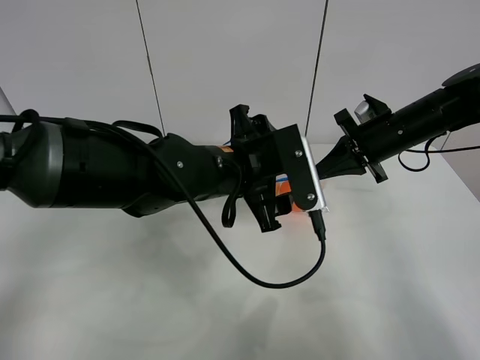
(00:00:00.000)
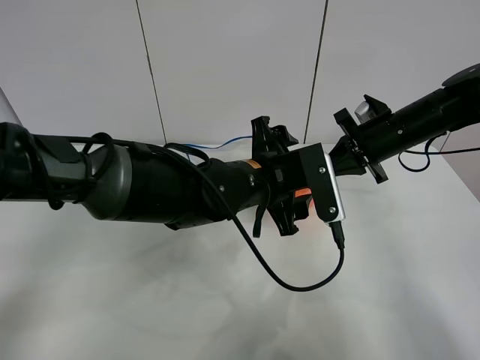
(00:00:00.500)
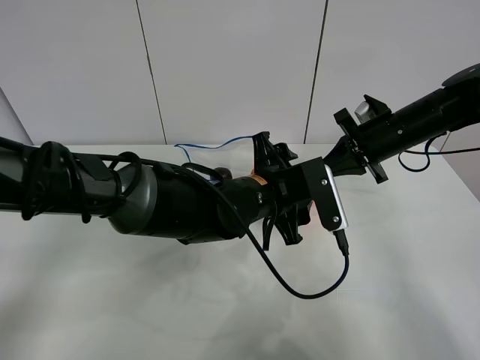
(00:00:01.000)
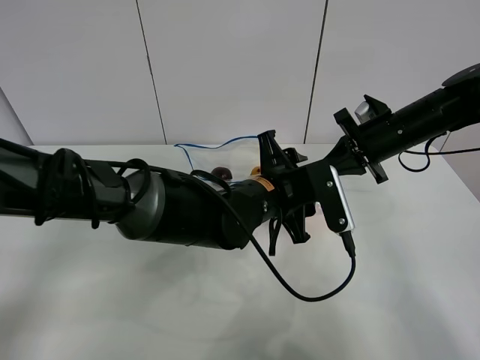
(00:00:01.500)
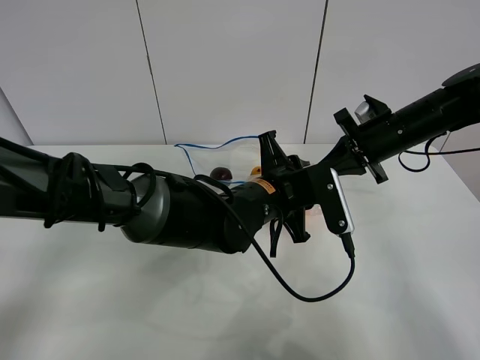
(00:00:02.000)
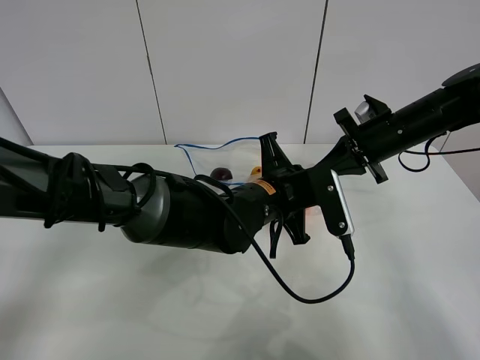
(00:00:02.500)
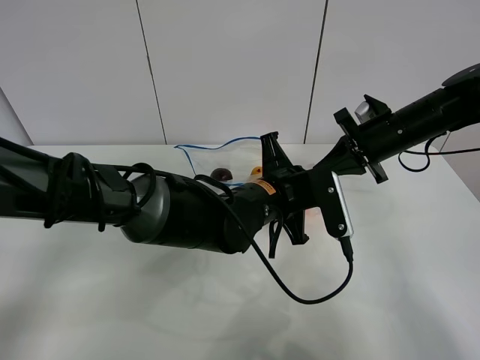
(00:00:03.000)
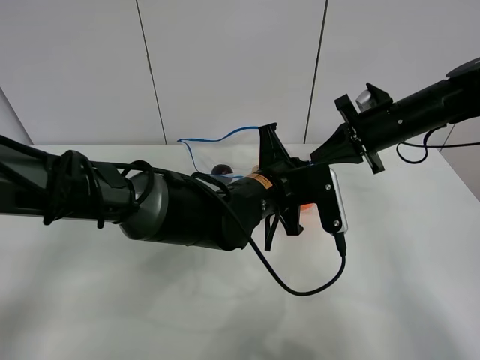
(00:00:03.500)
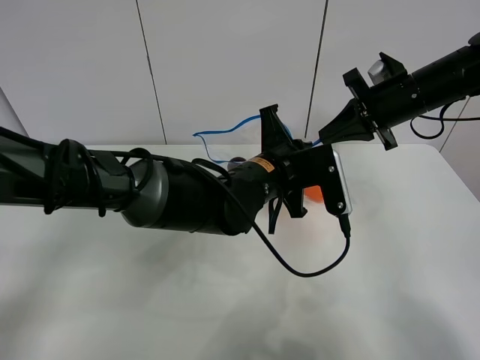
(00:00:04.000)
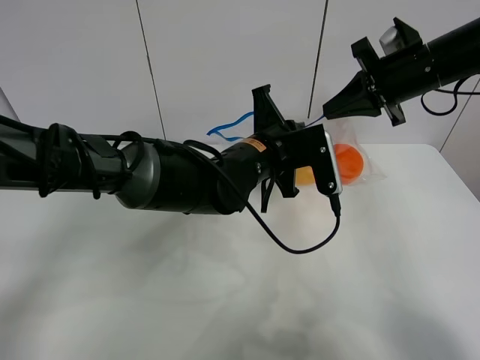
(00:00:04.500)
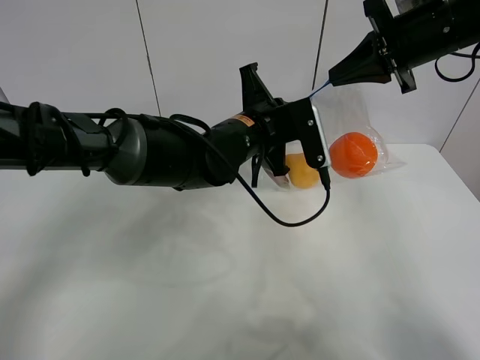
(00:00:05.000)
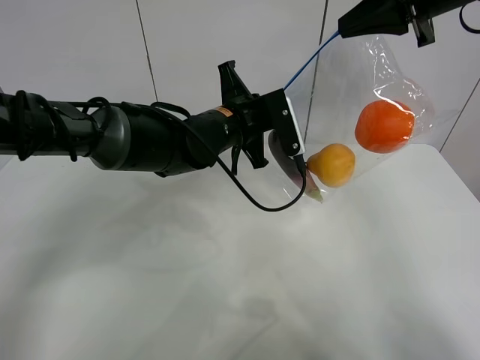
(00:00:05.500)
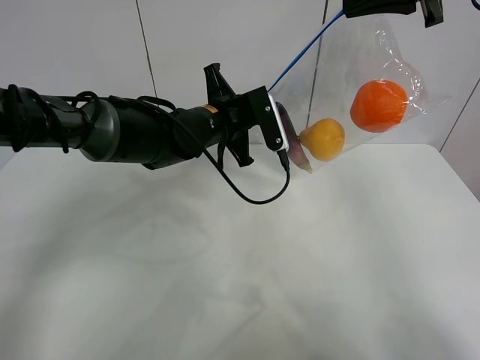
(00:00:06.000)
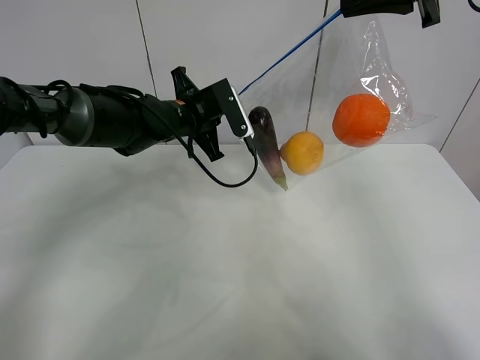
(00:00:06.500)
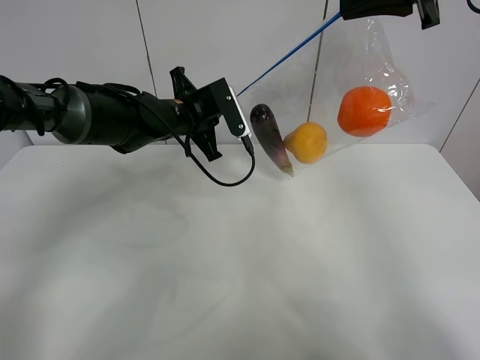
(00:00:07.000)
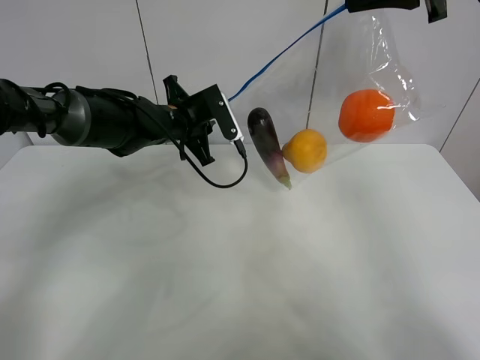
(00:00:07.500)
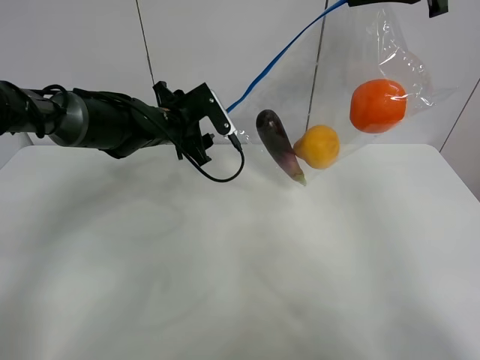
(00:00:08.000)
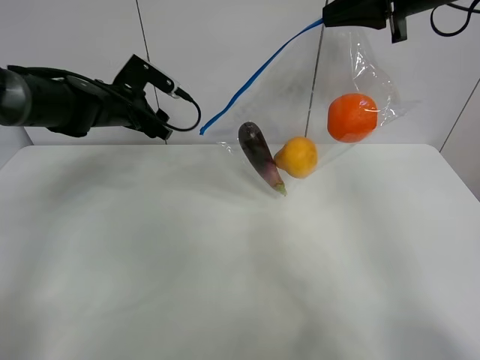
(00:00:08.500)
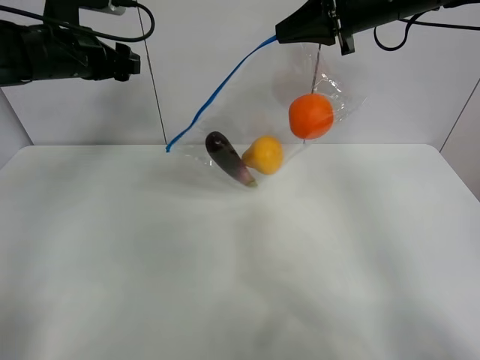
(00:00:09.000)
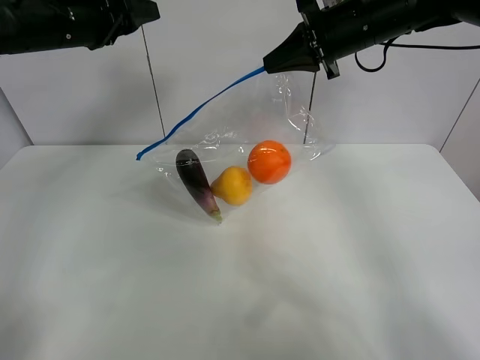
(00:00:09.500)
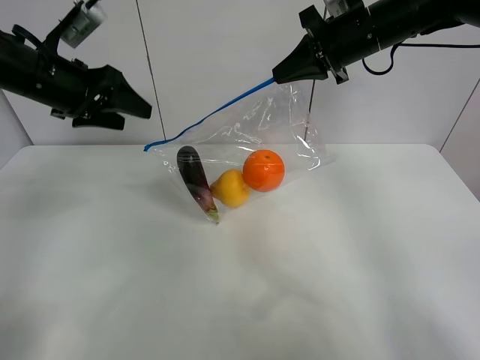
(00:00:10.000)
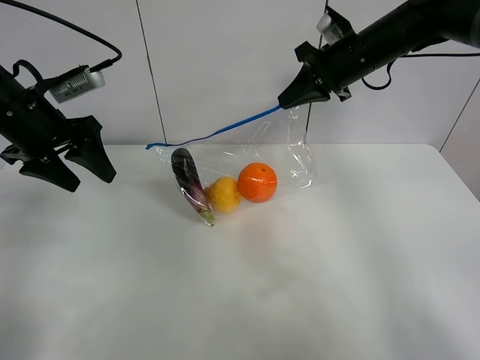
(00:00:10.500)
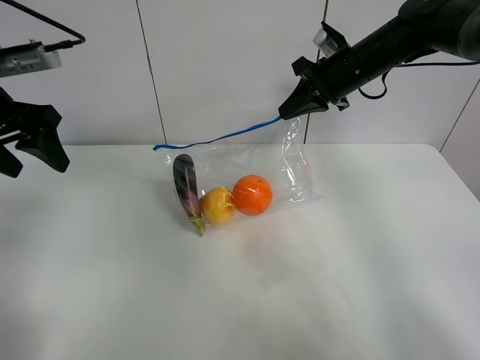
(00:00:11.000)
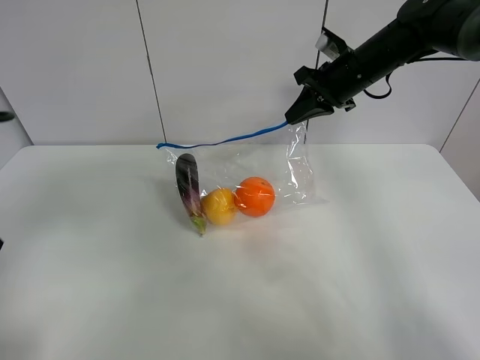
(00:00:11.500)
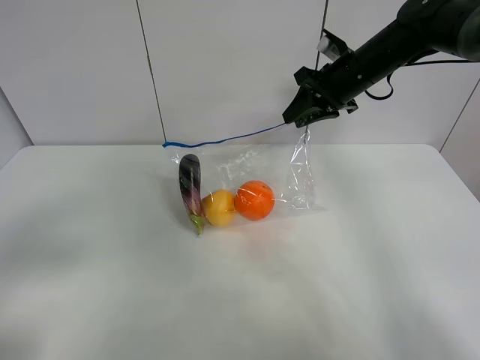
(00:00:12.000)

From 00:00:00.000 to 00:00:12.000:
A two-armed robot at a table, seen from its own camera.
Step, from 00:00:00.000 to 00:00:07.500: Pull the fruit bag with left gripper.
From 00:00:00.000 to 00:00:02.000: The left gripper moves downward, roughly 5 cm, and closes.
From 00:00:02.000 to 00:00:04.000: The left gripper closes; the right gripper goes roughly 5 cm upward.
From 00:00:04.000 to 00:00:06.000: The right gripper shifts about 15 cm upward. Meanwhile the left gripper shifts some 10 cm to the left and forward.
From 00:00:06.000 to 00:00:08.000: The left gripper is displaced to the left by roughly 10 cm, and opens its fingers.
From 00:00:08.000 to 00:00:10.000: The left gripper heads to the left, upward and backward, covering about 20 cm. Meanwhile the right gripper goes approximately 15 cm downward, forward and to the left.
From 00:00:10.000 to 00:00:12.000: The left gripper travels backward by roughly 30 cm. Meanwhile the right gripper heads downward, covering about 5 cm, and opens up.

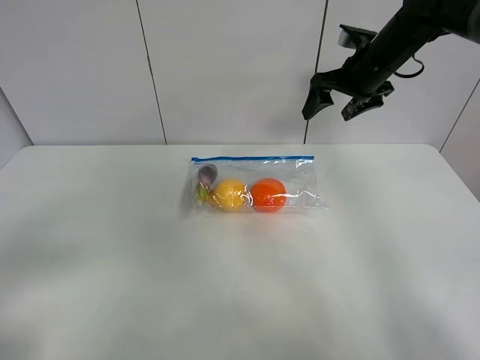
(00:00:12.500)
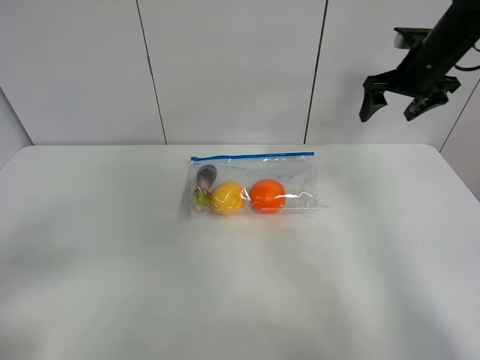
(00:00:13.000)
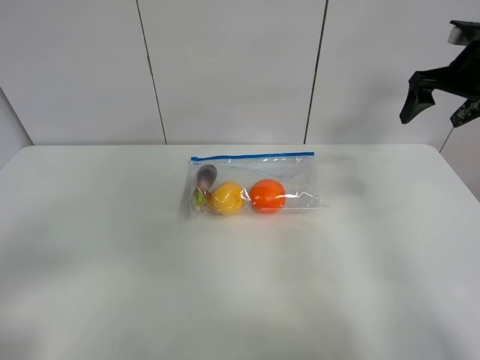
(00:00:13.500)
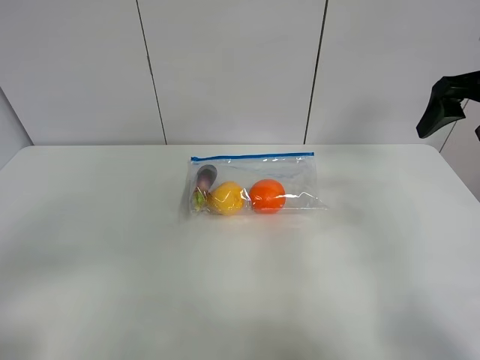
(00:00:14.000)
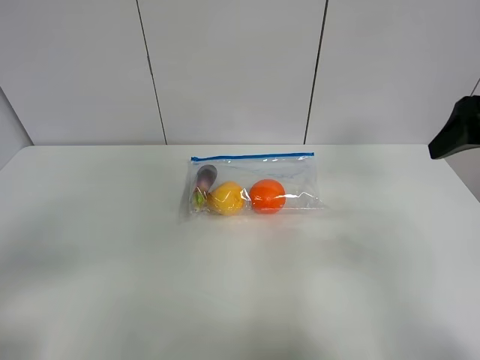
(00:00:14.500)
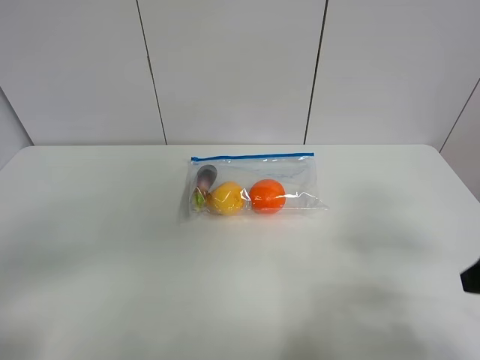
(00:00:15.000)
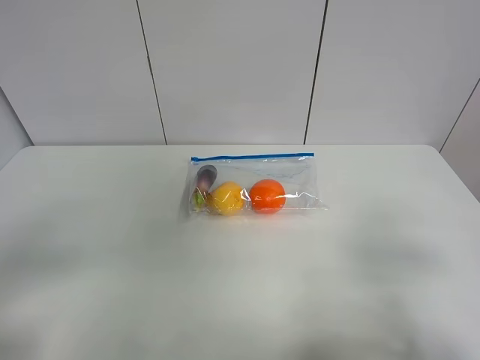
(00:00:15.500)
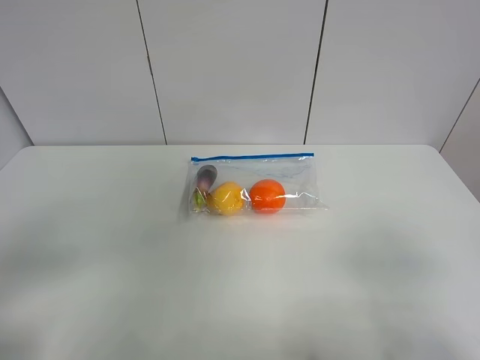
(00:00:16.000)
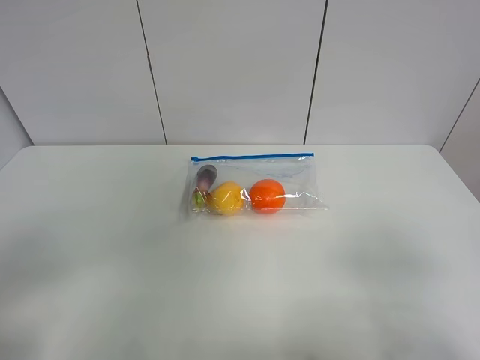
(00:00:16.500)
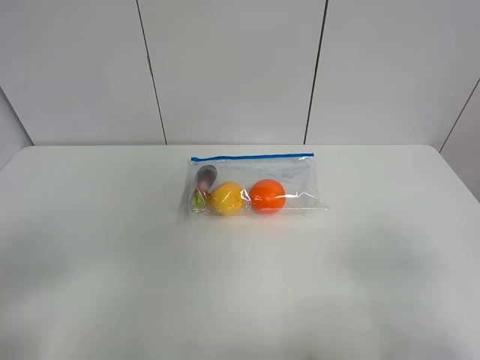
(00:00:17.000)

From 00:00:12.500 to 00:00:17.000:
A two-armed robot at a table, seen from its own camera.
From 00:00:12.500 to 00:00:14.500: The right gripper heads backward, covering some 25 cm.
From 00:00:14.500 to 00:00:17.000: The right gripper heads backward, covering some 20 cm.
